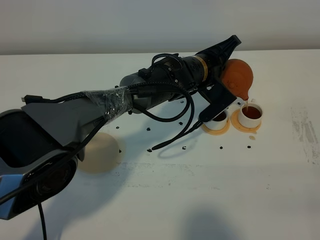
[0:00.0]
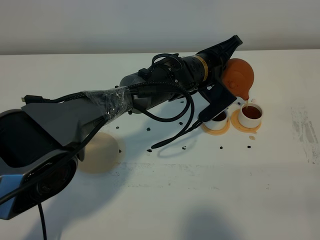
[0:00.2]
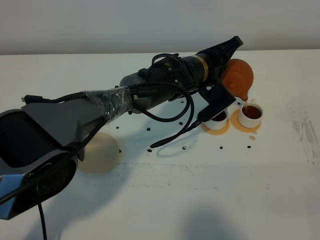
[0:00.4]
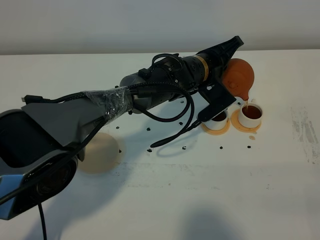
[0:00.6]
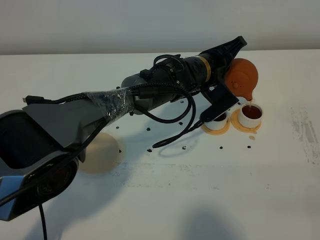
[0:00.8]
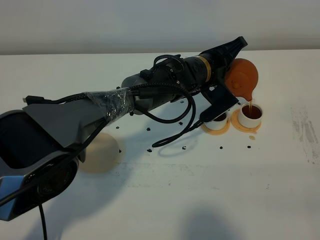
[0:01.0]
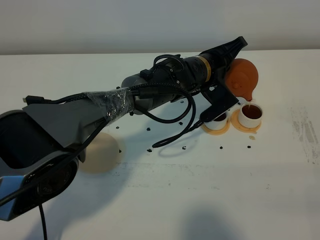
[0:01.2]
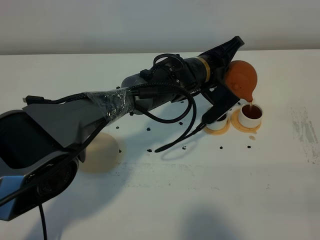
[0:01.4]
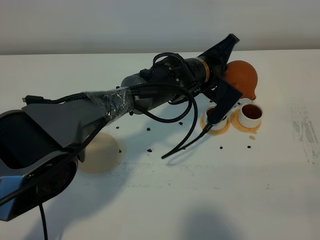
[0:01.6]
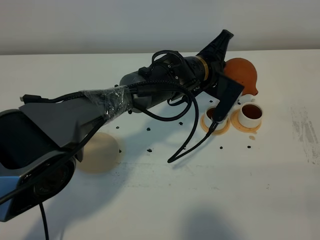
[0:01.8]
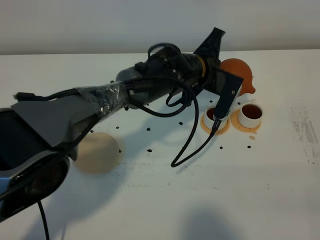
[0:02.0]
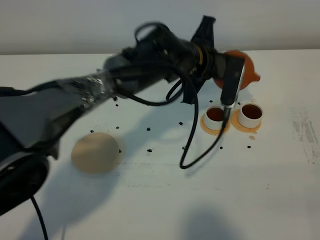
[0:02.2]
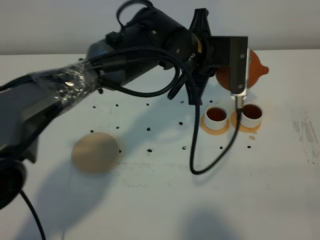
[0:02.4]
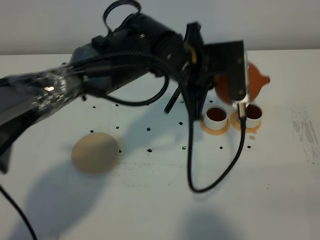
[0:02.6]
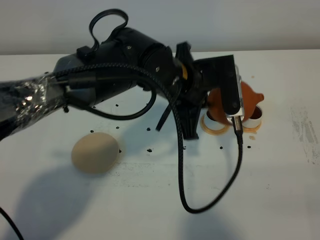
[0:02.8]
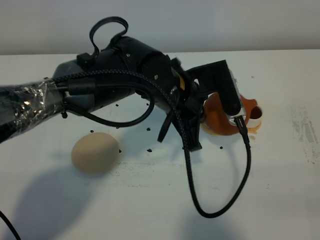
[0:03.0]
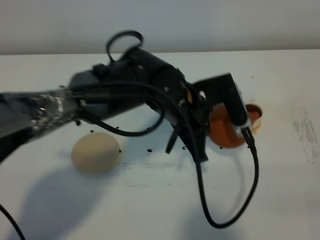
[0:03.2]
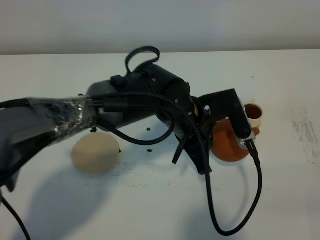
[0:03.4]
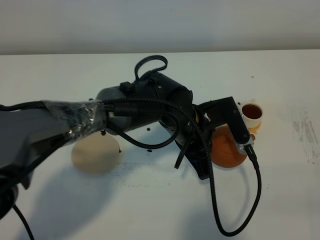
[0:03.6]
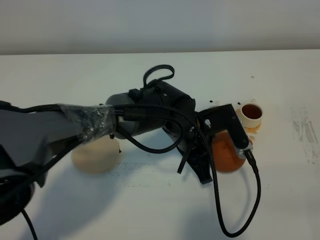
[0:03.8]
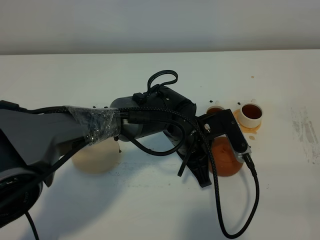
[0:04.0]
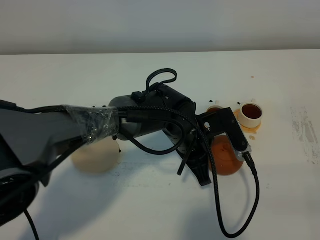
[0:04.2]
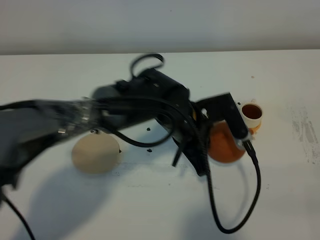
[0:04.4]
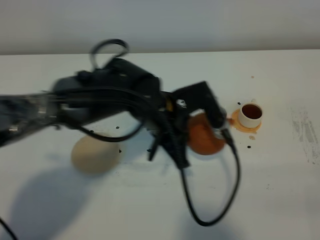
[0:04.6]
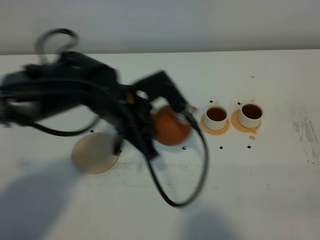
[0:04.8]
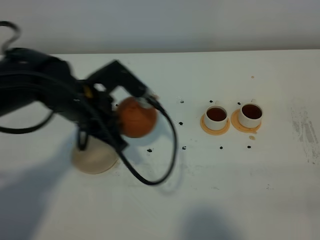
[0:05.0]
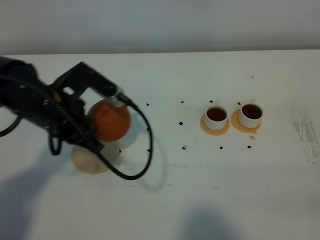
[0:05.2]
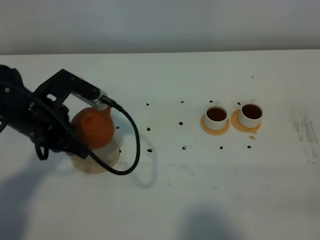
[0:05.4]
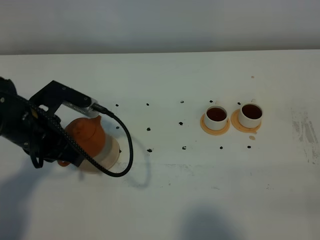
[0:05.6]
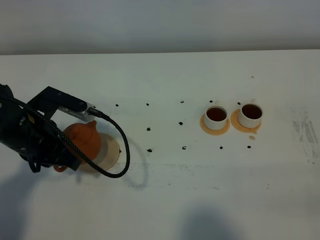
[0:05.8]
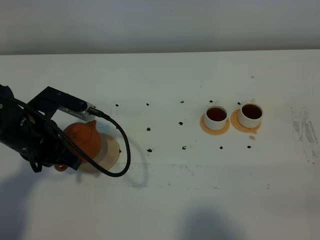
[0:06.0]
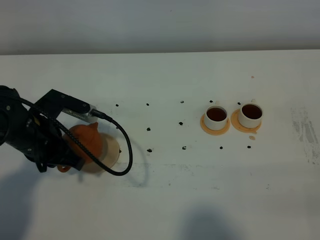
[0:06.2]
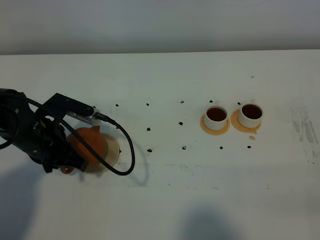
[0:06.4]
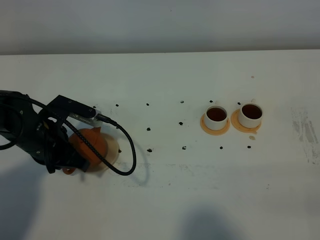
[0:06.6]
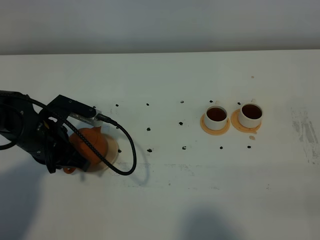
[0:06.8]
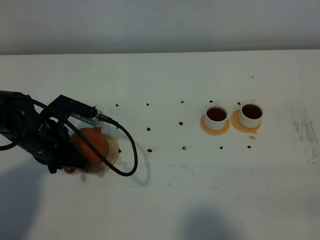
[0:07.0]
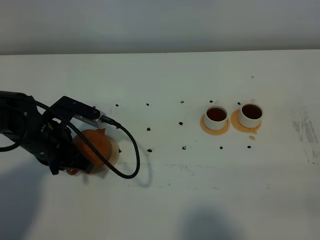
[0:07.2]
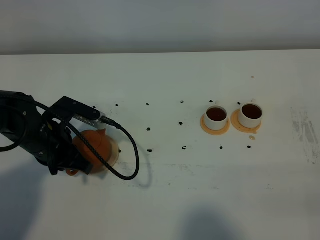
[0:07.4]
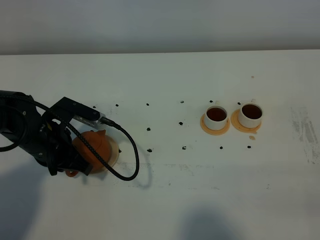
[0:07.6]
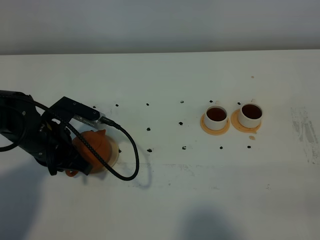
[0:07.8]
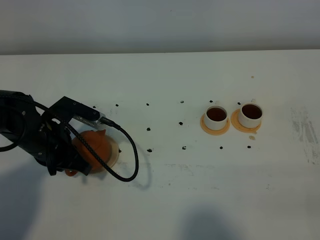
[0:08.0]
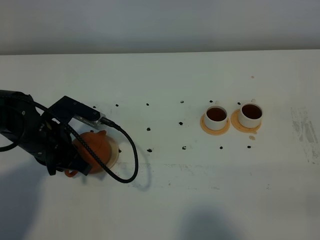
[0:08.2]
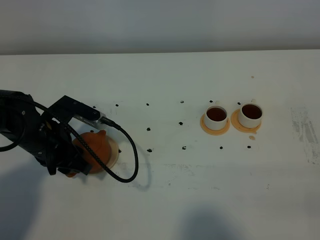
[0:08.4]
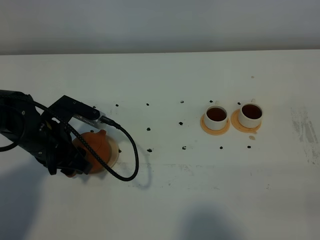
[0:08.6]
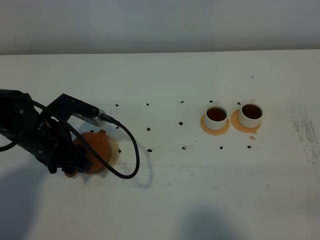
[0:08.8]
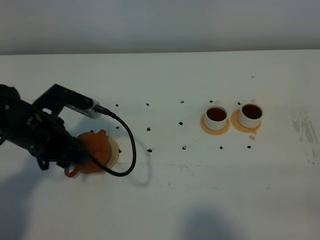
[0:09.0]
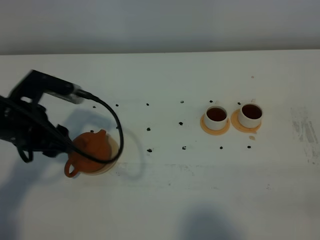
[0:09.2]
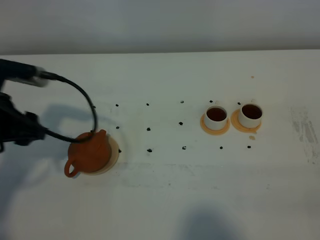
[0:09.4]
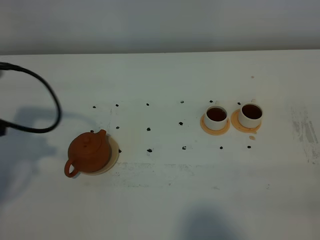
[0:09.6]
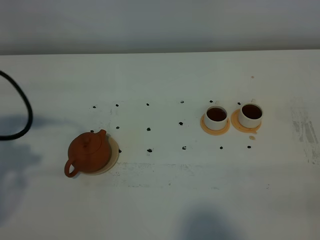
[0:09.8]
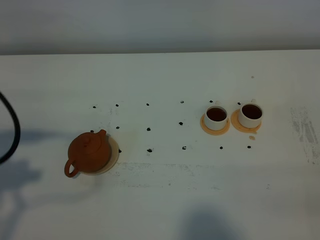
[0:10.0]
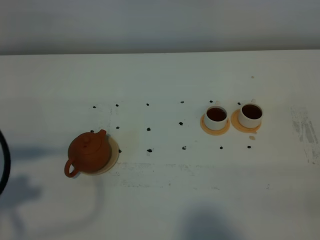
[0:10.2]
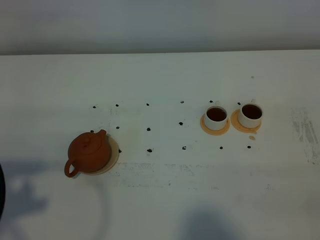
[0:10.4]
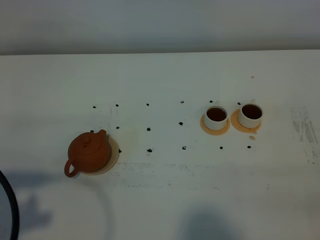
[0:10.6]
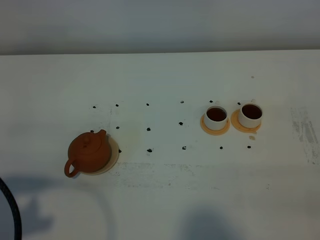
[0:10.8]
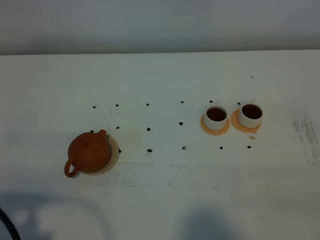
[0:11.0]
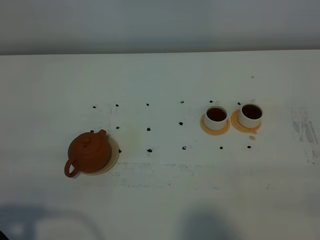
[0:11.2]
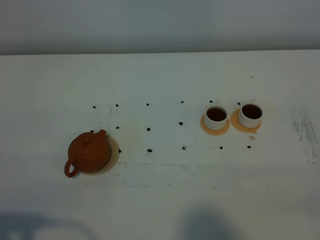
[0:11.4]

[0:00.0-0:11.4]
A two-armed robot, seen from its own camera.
Task of the whole recording: grasp the brown teapot and pour the tea into the two white teacups one by one, put the brown teapot back in its original place.
Step, 0:00.0 to 0:02.0: Pour tea into the teacup with the left gripper.
0:00.0 to 0:01.4: Both grippers stay put.
0:01.4 to 0:02.8: The left gripper heads backward, upward and to the left, covering approximately 15 cm.
0:02.8 to 0:04.2: The left gripper goes some 10 cm downward.
0:04.2 to 0:05.6: The left gripper moves to the left, approximately 25 cm.
0:05.6 to 0:07.2: There are only small adjustments of the grippers.
0:07.2 to 0:08.6: The left gripper opens.
0:08.6 to 0:10.0: The left gripper is displaced upward, backward and to the left by about 25 cm.
0:10.0 to 0:11.4: The left gripper moves backward and downward, roughly 15 cm.

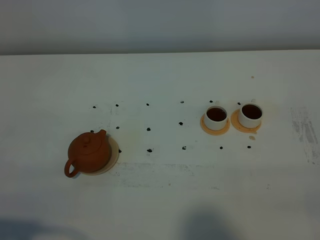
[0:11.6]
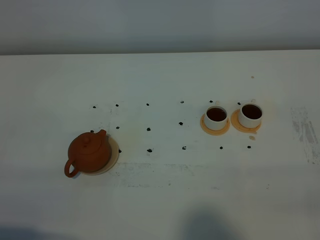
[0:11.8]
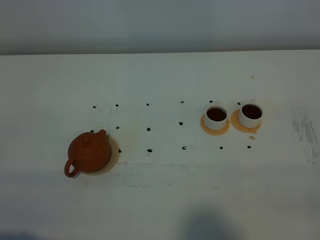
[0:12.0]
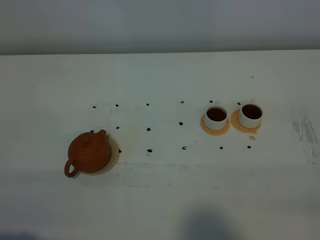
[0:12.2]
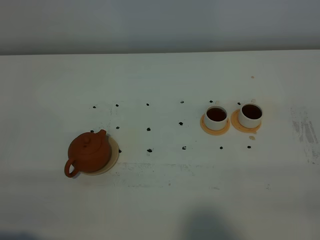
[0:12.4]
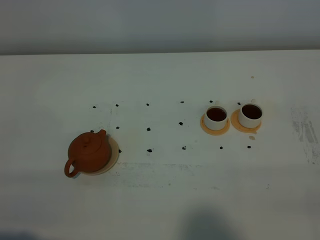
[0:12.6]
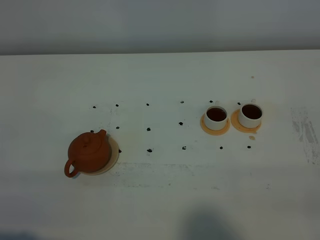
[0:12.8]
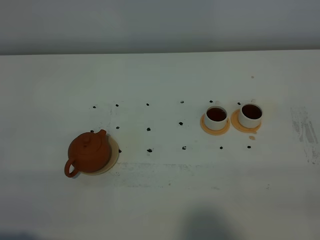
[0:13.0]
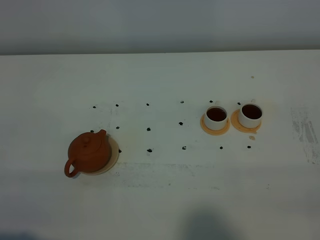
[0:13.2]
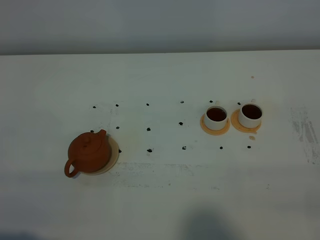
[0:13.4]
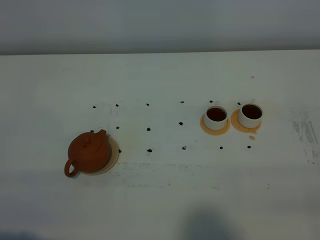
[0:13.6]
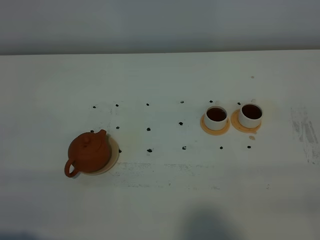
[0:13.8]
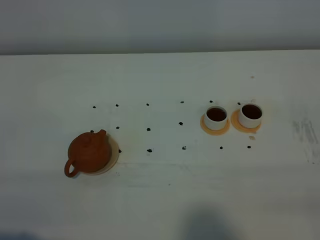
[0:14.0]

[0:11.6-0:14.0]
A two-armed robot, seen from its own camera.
Task of the whole recording: grasp the brown teapot and pour the tea into the two white teacups one by one, put the brown teapot back in its original place.
0:12.8 to 0:14.0: Both grippers stay put.

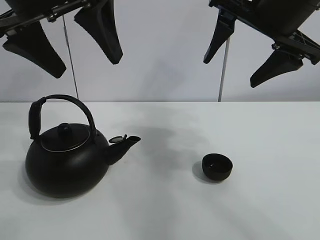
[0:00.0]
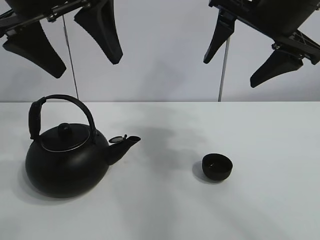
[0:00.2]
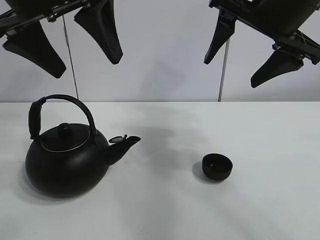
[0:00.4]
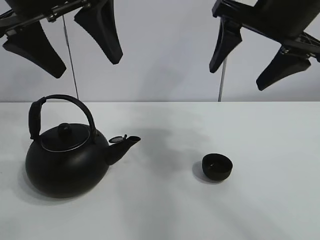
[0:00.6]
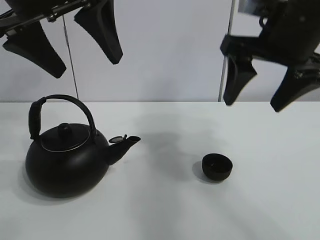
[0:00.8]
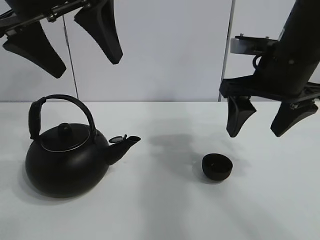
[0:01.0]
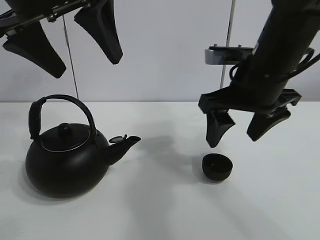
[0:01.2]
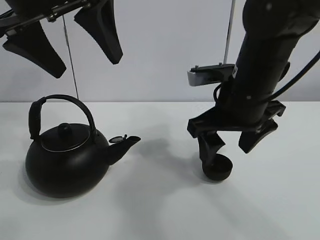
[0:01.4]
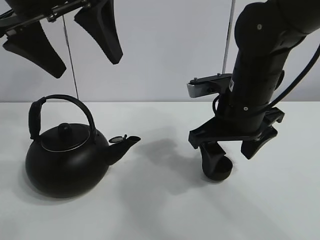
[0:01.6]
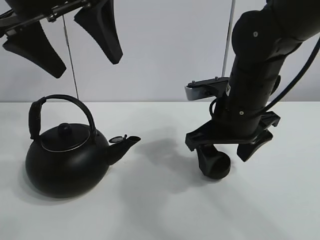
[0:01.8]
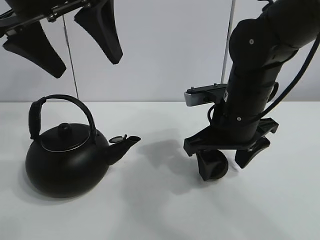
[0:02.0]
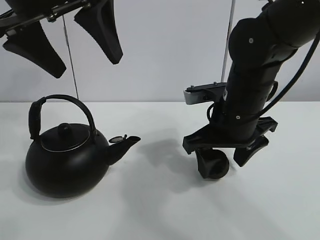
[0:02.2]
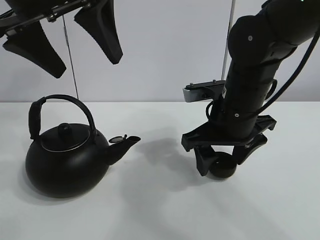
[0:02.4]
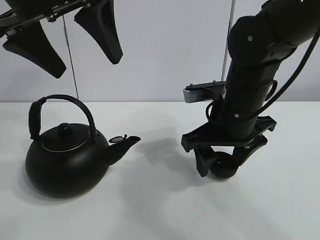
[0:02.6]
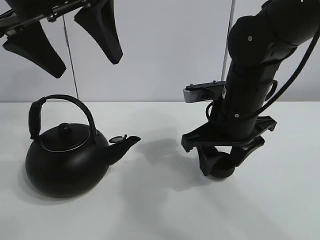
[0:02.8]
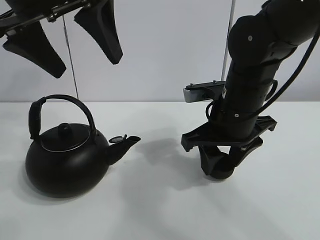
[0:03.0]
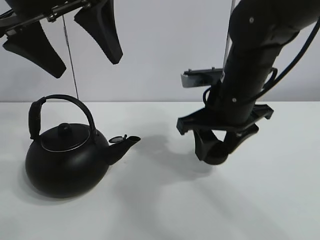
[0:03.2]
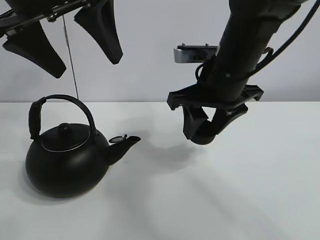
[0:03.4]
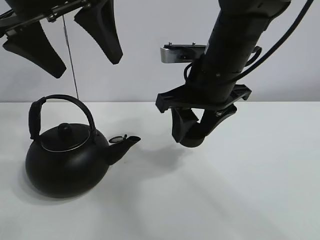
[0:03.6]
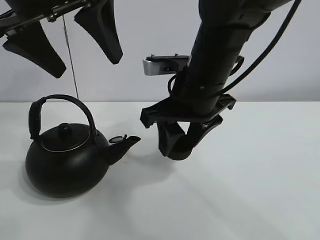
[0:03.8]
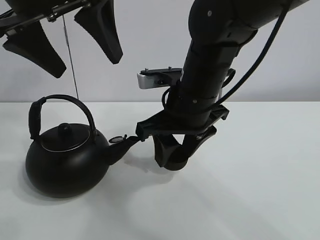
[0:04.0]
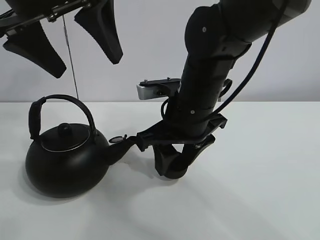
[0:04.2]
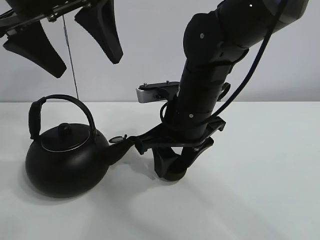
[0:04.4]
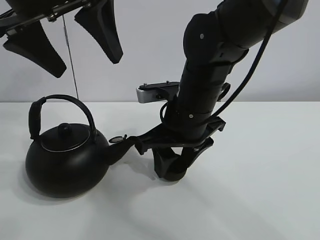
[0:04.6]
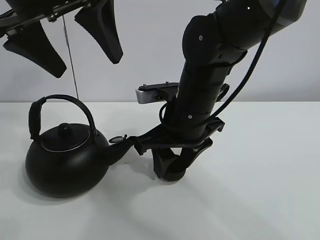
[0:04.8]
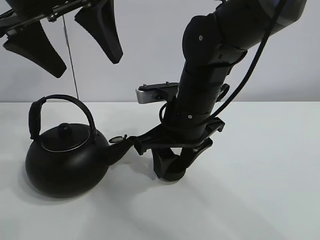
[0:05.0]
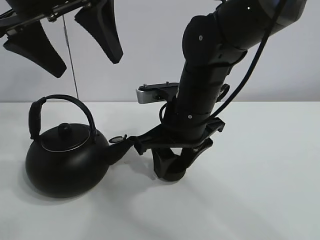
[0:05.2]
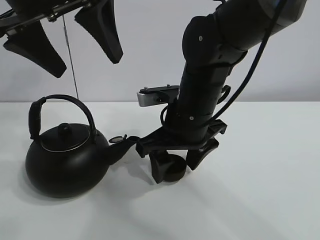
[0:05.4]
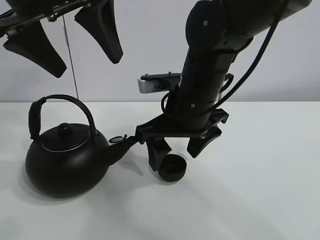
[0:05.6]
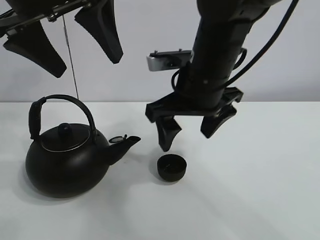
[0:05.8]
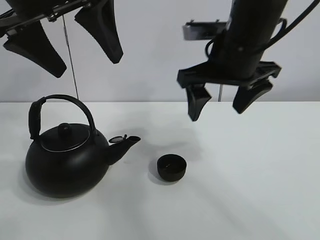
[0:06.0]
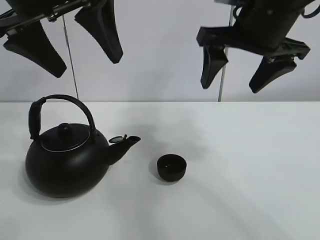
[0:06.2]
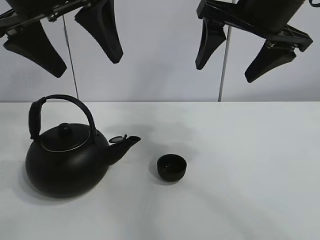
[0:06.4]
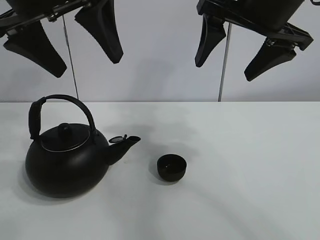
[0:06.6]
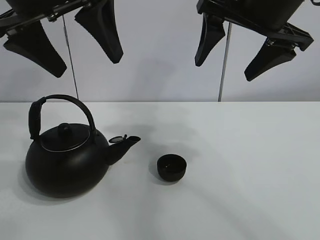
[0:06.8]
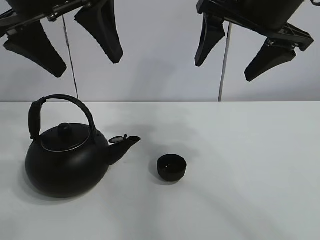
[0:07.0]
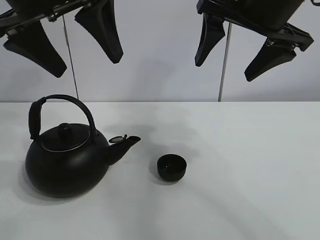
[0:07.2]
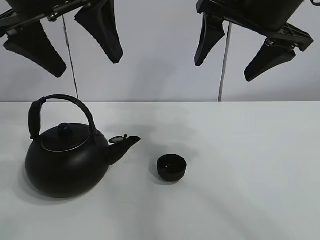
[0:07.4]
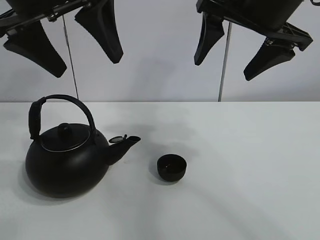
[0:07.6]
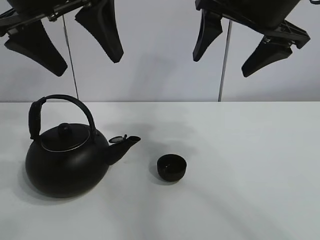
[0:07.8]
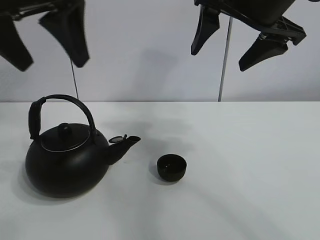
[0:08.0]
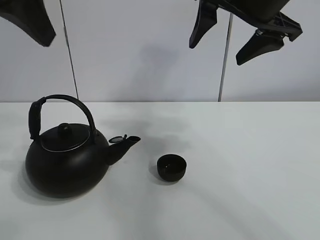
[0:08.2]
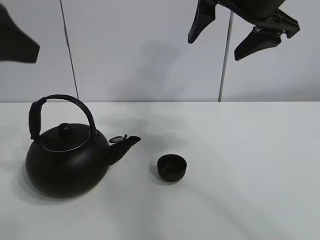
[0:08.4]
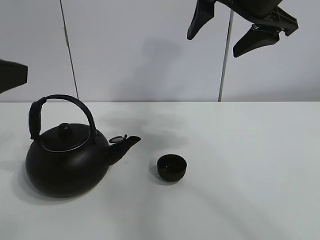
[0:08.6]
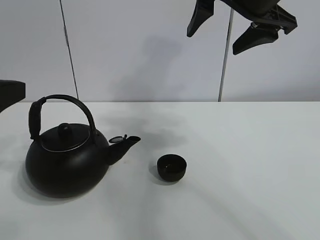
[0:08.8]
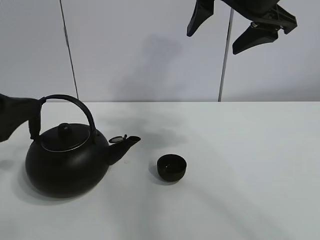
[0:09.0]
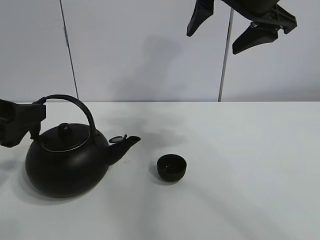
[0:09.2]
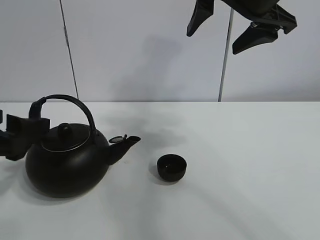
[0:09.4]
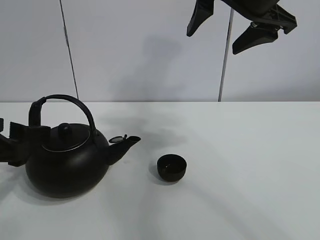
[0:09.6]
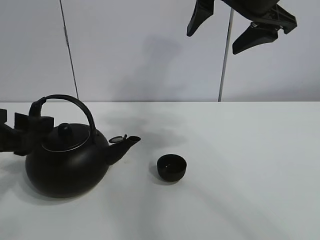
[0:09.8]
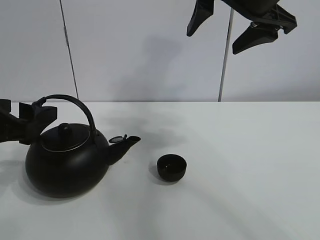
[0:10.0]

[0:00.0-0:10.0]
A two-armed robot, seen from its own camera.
Task of the whole recording: pour tea into the teacup.
Step, 0:00.0 to 0:02.8: Pick up the teacup with the right gripper.
Step, 0:03.0 to 0:05.4: Place the teacup in the center of view with the right gripper.
0:01.4 to 0:02.8: The right gripper closes its fingers.
0:02.8 to 0:04.2: The right gripper is displaced to the left by approximately 5 cm.
0:04.2 to 0:05.8: The right gripper opens.
0:05.8 to 0:07.2: The right gripper shifts about 15 cm upward and to the right.
0:07.2 to 0:08.6: The left gripper shifts about 15 cm to the left, backward and downward.
0:08.6 to 0:10.0: The left gripper heads downward and forward, covering about 10 cm.
